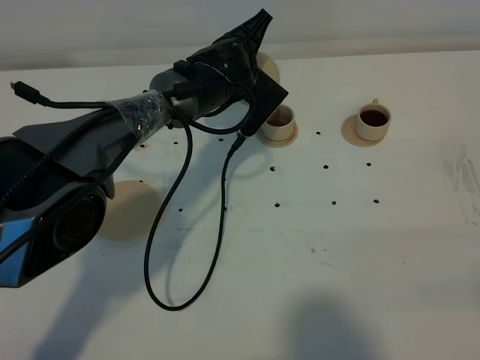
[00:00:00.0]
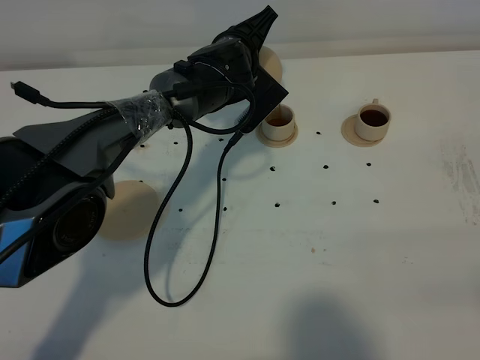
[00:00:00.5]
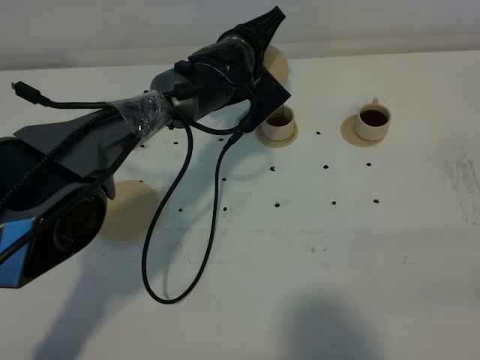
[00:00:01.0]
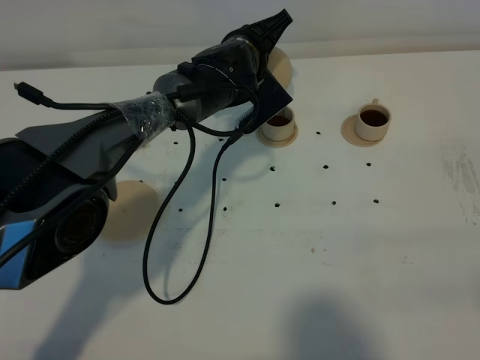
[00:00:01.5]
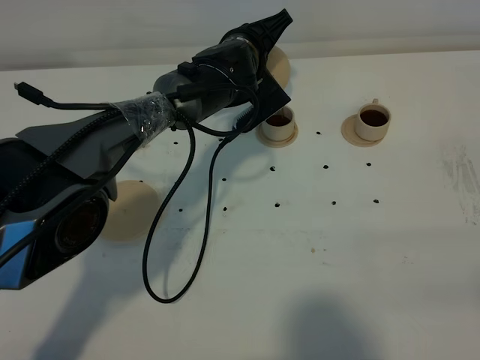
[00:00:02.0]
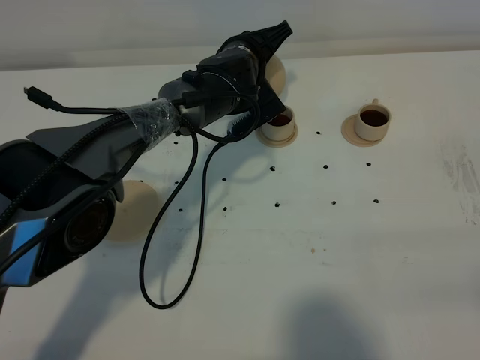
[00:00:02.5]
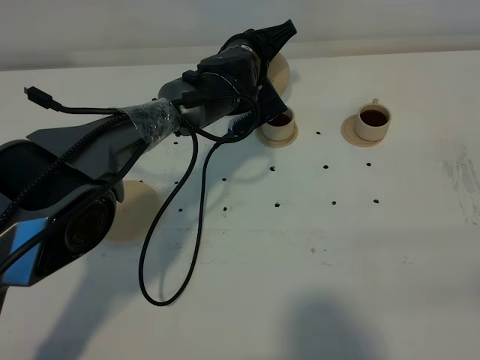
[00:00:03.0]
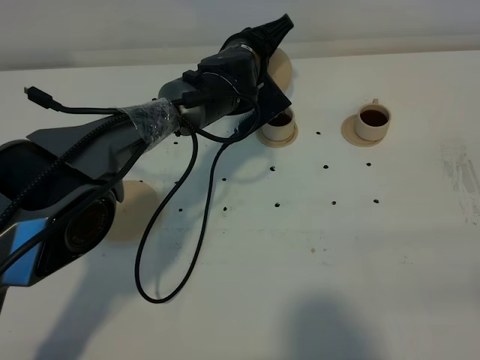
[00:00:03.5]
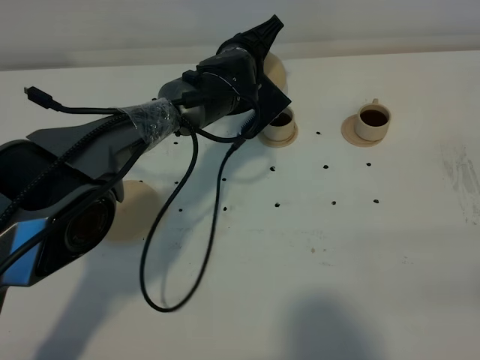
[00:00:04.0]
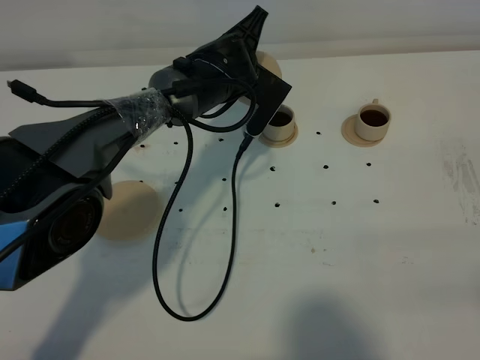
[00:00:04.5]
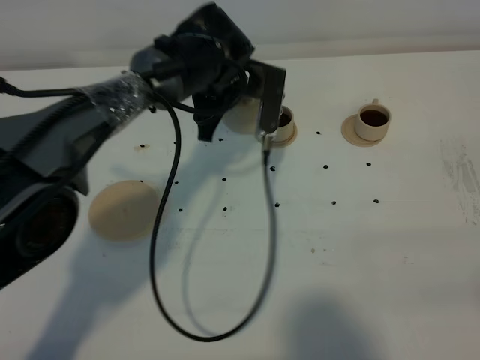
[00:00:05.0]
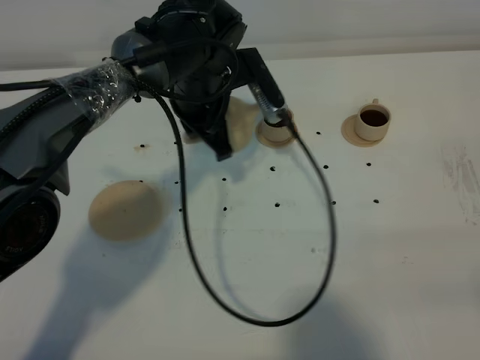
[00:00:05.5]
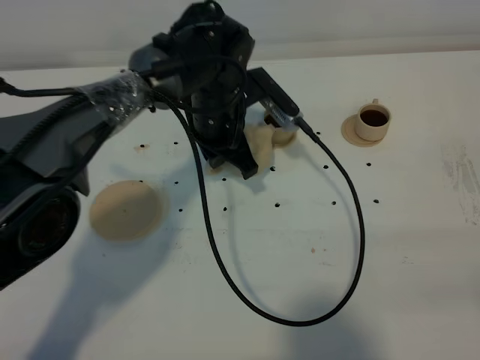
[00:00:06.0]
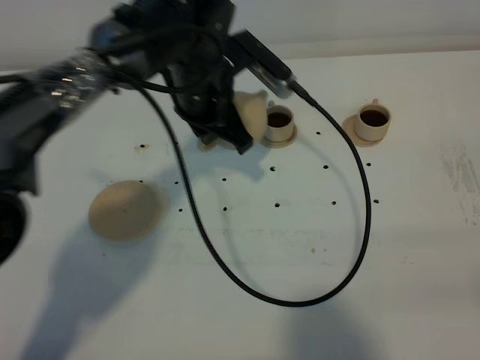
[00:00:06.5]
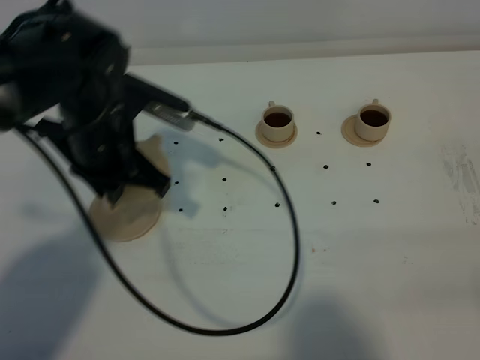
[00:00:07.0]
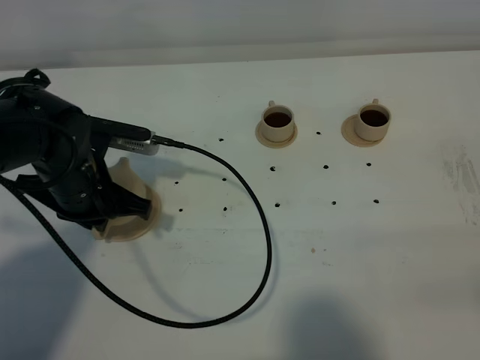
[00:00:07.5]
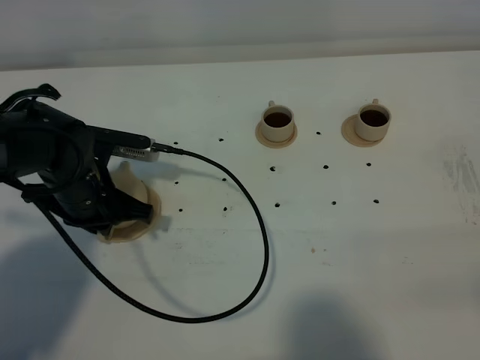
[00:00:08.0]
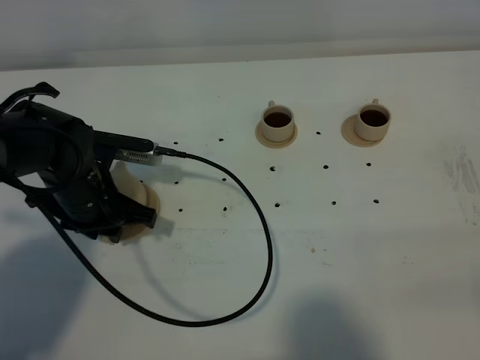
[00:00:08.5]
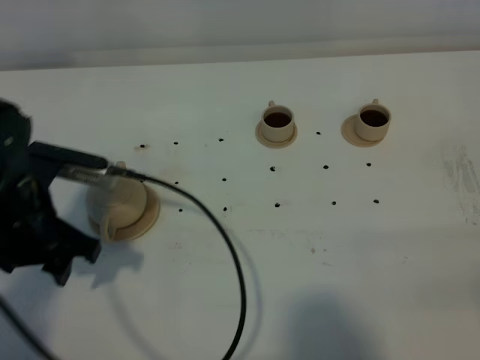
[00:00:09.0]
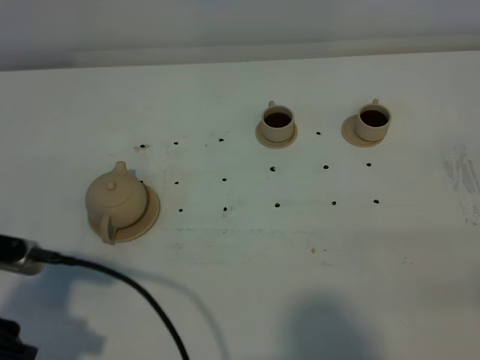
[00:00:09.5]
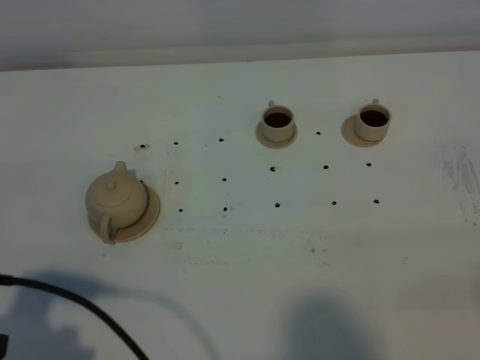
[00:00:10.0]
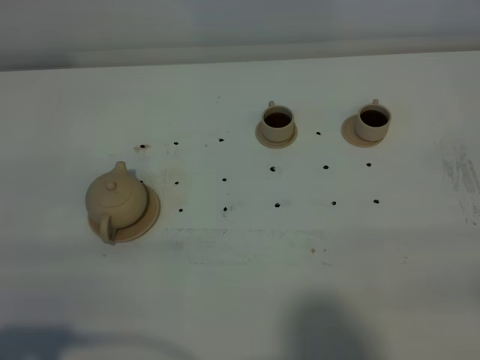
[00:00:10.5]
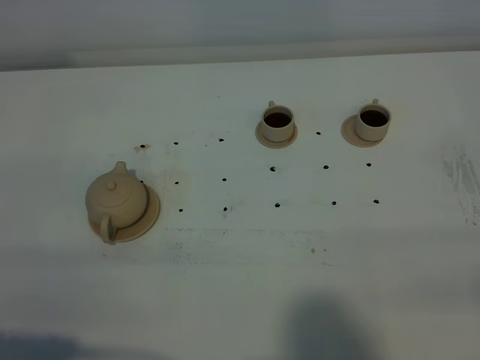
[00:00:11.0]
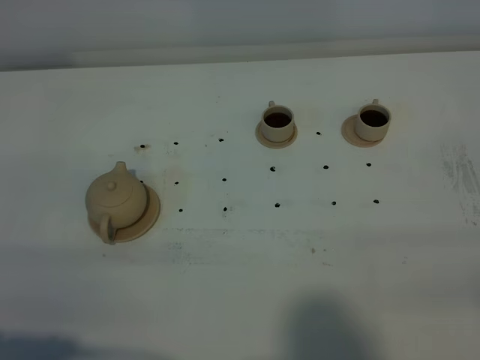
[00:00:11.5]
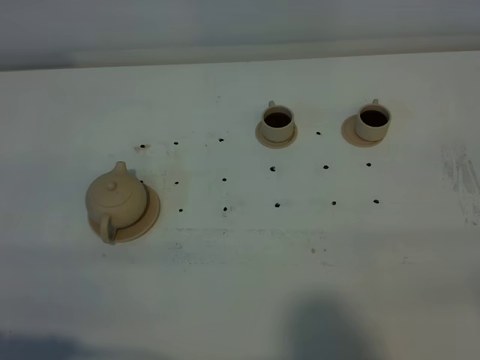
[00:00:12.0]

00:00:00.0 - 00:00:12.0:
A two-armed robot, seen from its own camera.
Task of the whole recording: grasp the brown teapot and pour the tea into the two brown teacups one by one, put the brown teapot back in its original place.
Step, 00:00:00.0 - 00:00:04.5: Pour tea into the teacup with the left gripper.
00:00:00.0 - 00:00:04.0: There are only small adjustments of the grippers.
00:00:04.0 - 00:00:06.0: The left gripper goes roughly 5 cm backward.
00:00:06.0 - 00:00:08.0: The left gripper travels to the left and backward by roughly 20 cm.
00:00:08.0 - 00:00:10.0: The left gripper shifts roughly 25 cm backward and upward, and opens its fingers.
00:00:10.0 - 00:00:12.0: The left gripper travels backward by roughly 5 cm.
